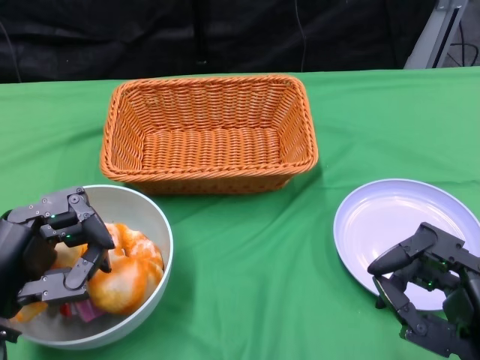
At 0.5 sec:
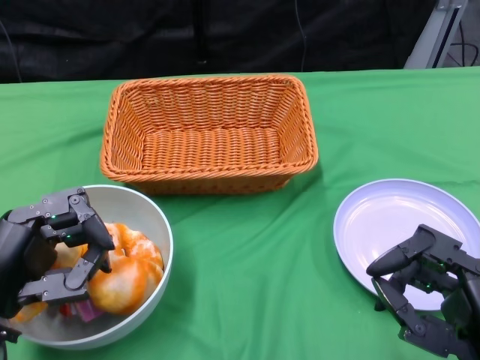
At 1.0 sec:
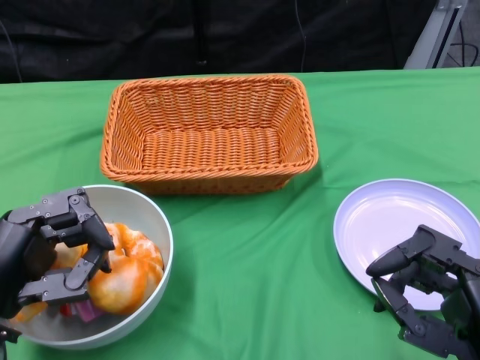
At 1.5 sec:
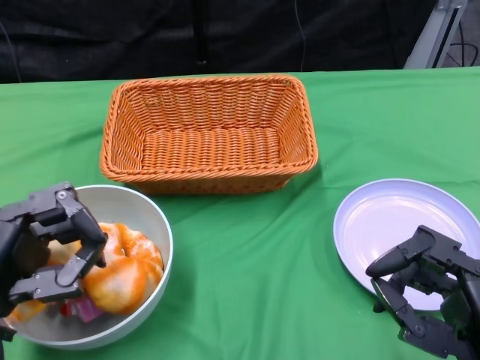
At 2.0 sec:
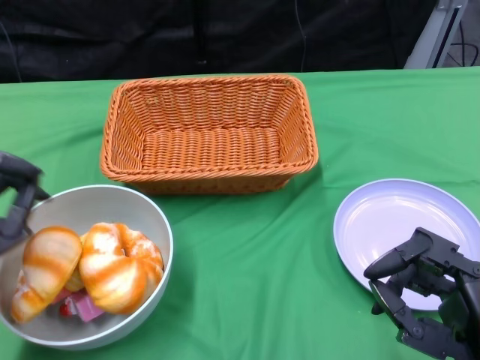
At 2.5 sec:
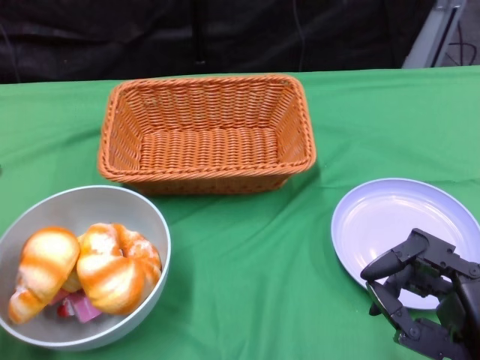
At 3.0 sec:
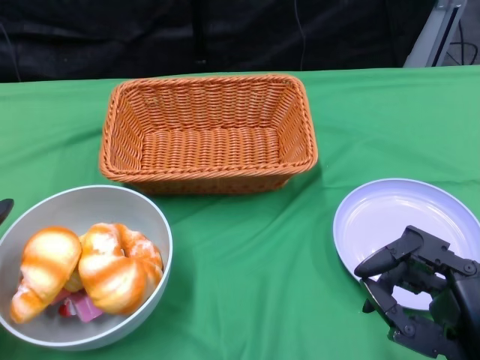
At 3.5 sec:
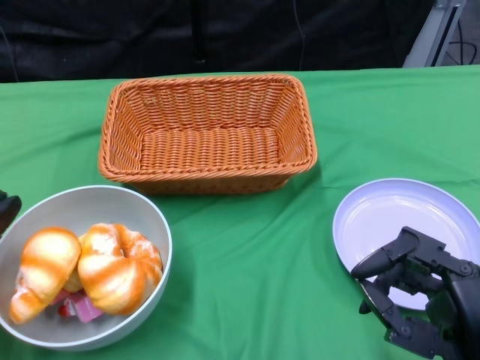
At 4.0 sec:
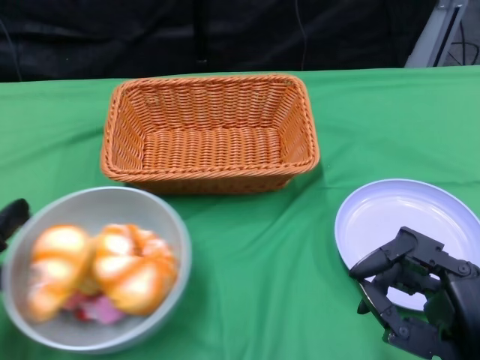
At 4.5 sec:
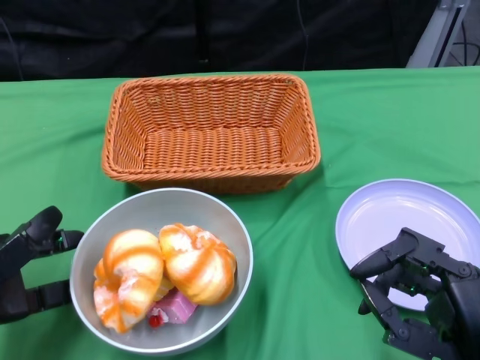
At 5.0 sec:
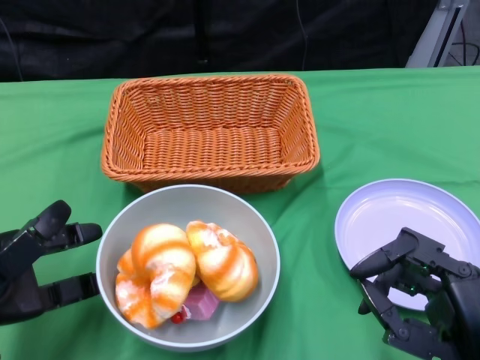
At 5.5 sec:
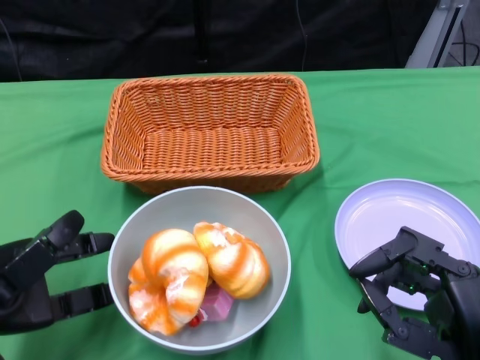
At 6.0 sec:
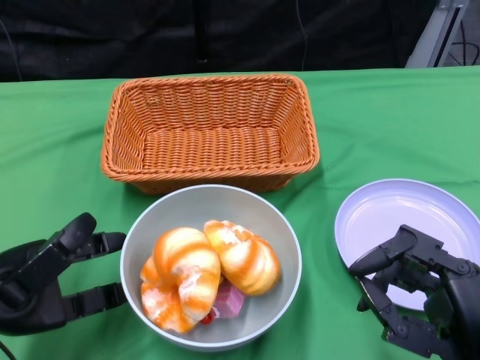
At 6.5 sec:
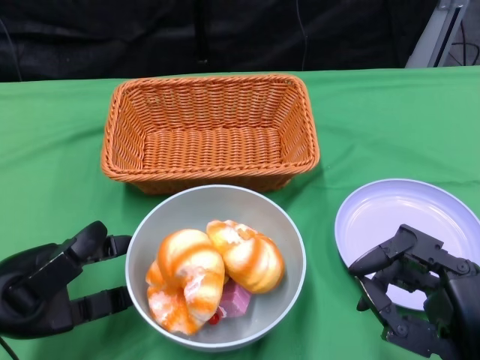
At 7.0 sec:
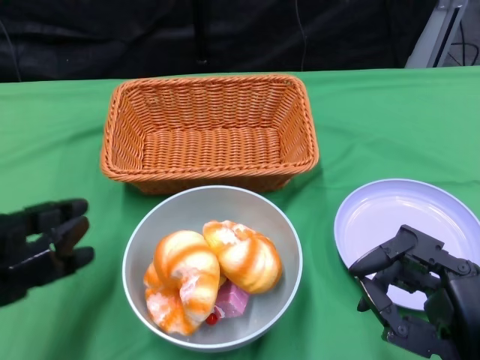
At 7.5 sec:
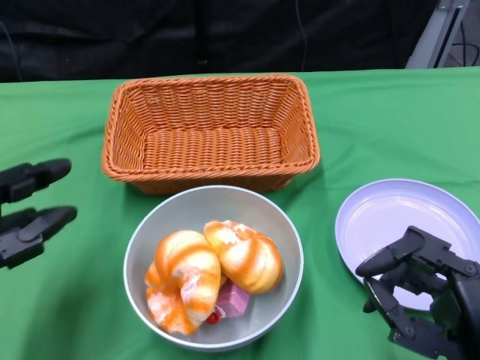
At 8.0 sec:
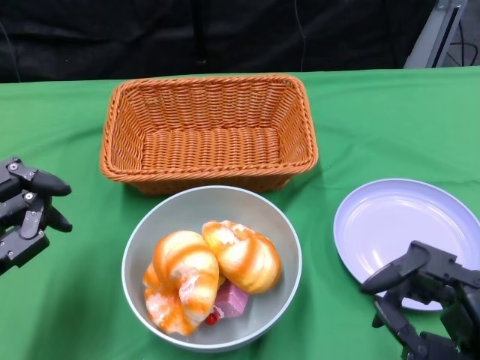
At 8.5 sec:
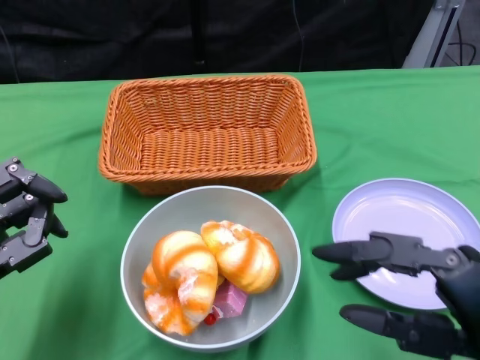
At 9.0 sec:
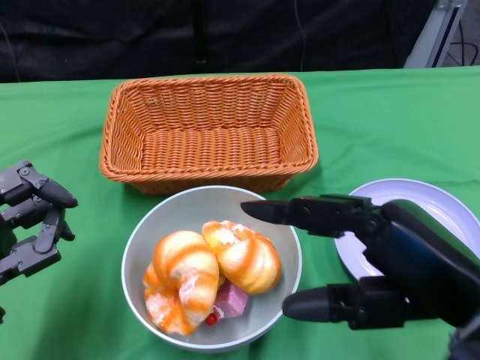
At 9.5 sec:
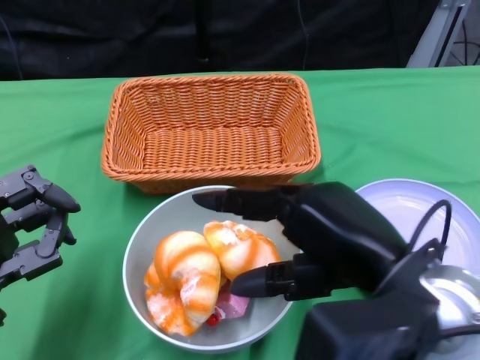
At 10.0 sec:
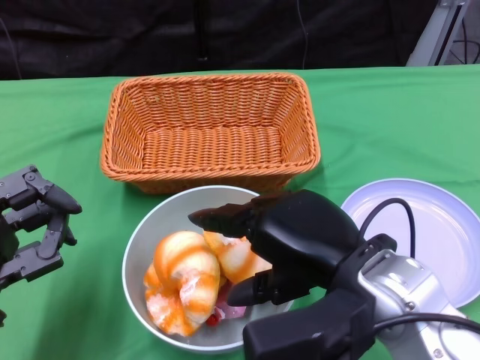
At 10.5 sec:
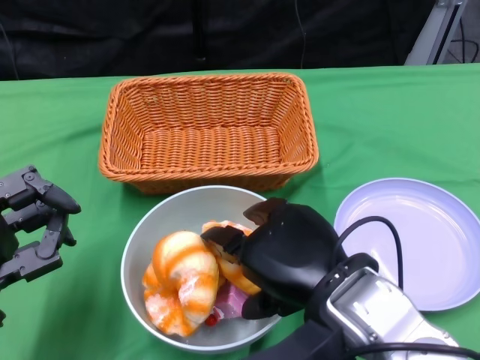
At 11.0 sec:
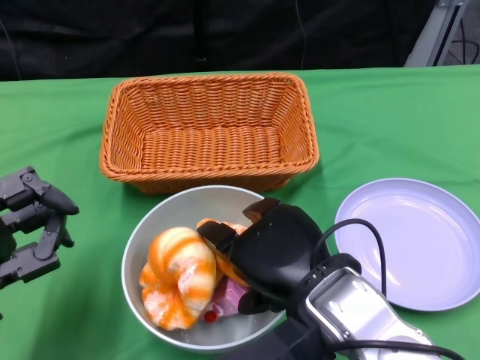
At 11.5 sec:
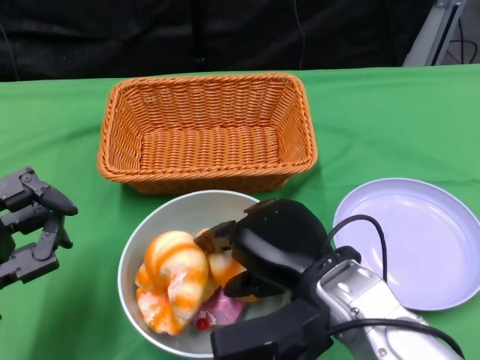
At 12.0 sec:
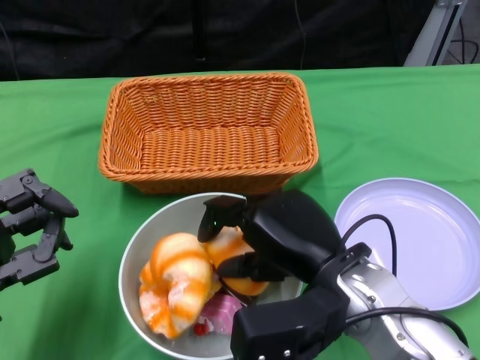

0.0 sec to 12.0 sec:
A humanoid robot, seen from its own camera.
Step, 0.0 sec to 7.0 sec: Push the bowl to the center of the table using the left gripper.
2.0 sec to 4.0 sec: The left hand shifts by about 5 cm.
4.0 sec to 6.0 sec: The left hand changes place by some 5 cm.
8.0 sec to 10.0 sec: The right hand travels to the left, forward and upward by approximately 15 cm.
10.0 sec to 12.0 sec: The right hand ends up roughly 5 cm from where it was.

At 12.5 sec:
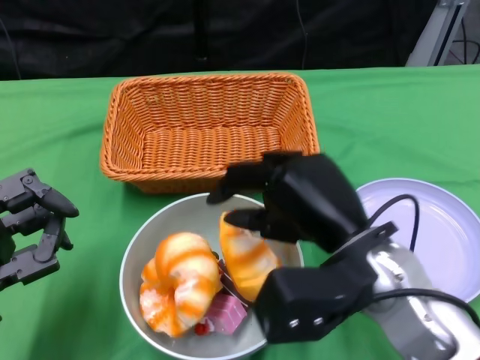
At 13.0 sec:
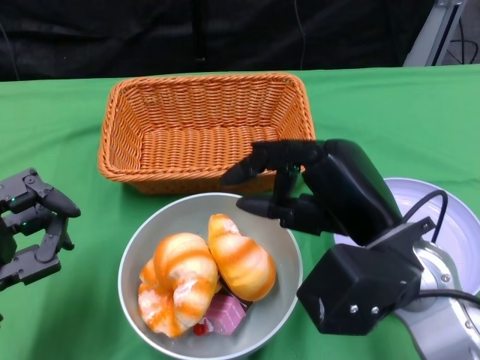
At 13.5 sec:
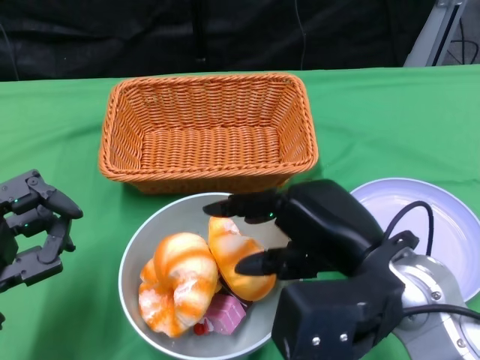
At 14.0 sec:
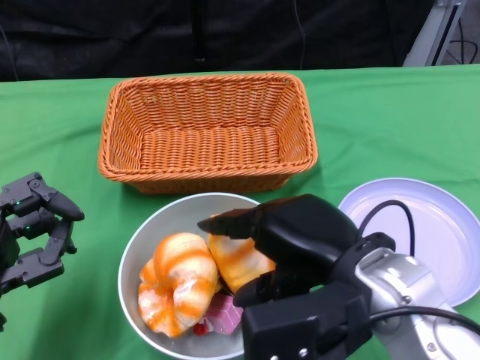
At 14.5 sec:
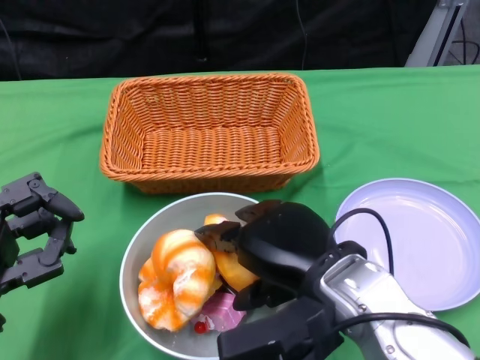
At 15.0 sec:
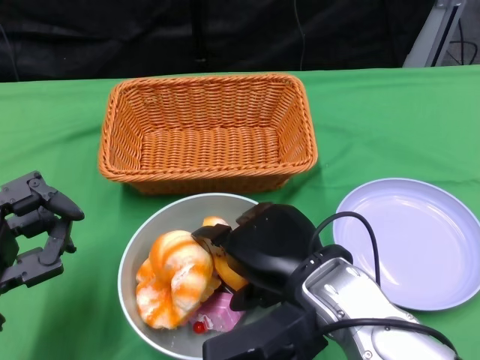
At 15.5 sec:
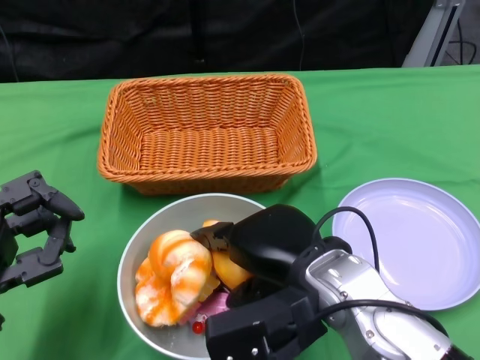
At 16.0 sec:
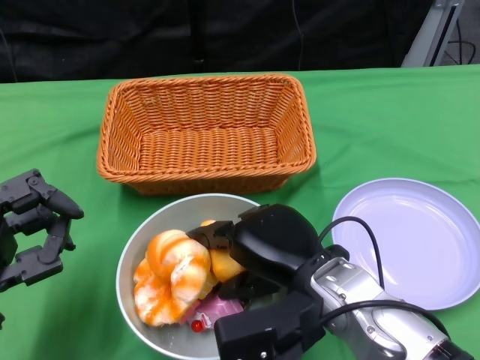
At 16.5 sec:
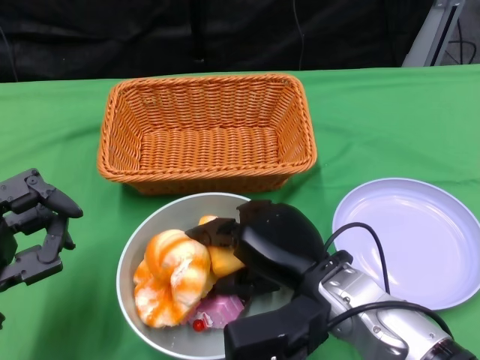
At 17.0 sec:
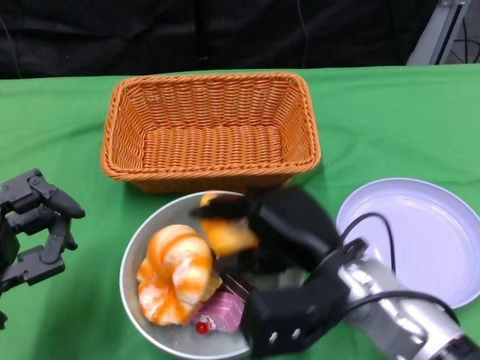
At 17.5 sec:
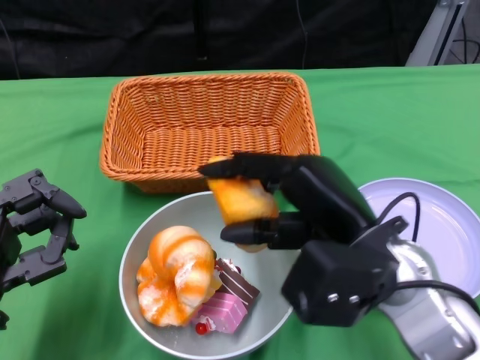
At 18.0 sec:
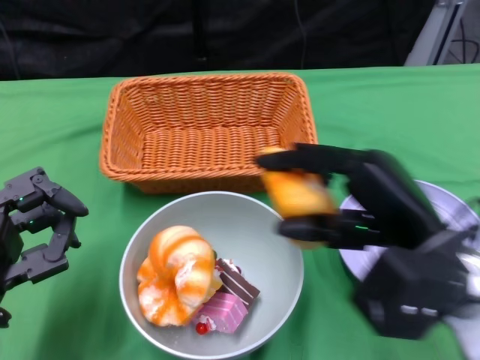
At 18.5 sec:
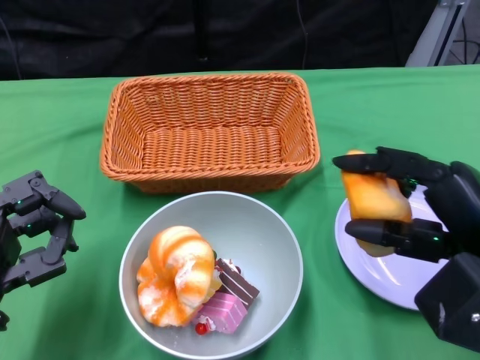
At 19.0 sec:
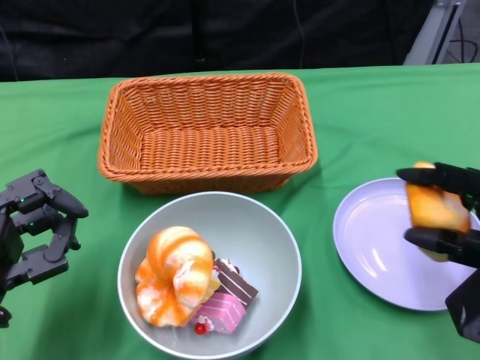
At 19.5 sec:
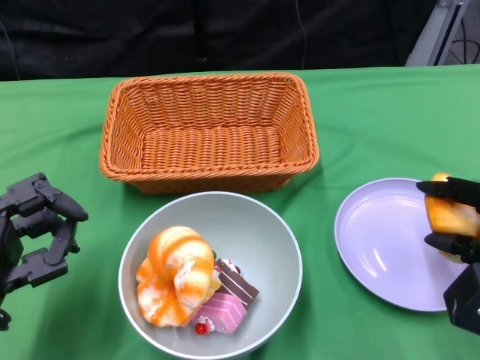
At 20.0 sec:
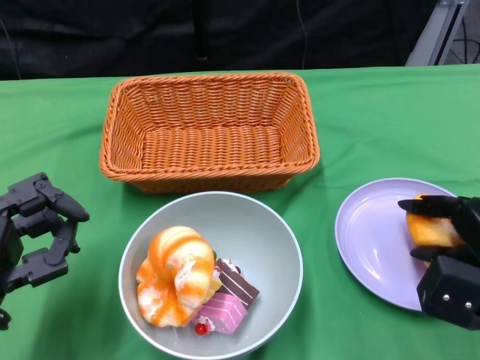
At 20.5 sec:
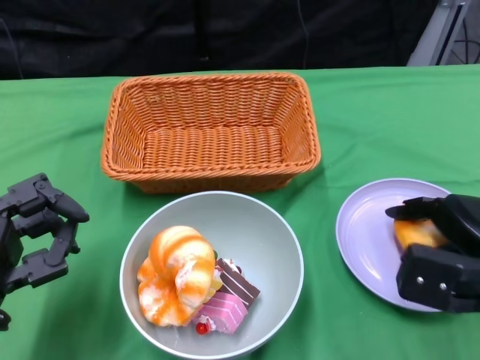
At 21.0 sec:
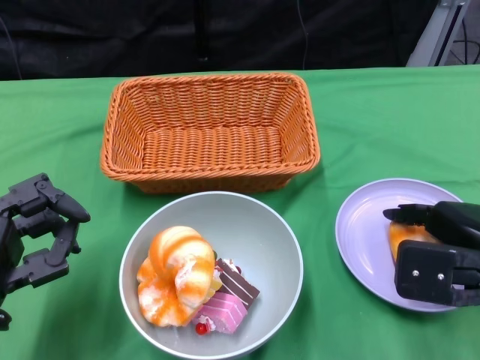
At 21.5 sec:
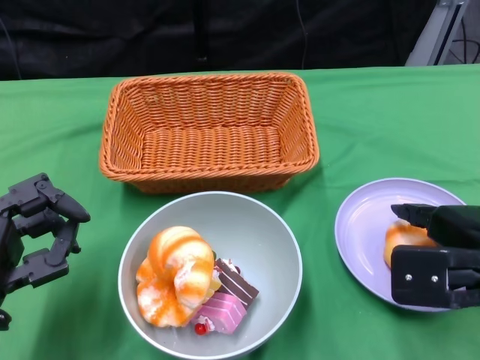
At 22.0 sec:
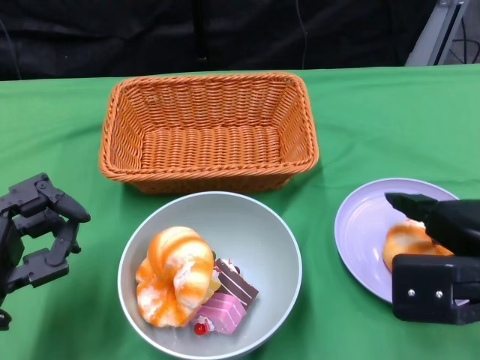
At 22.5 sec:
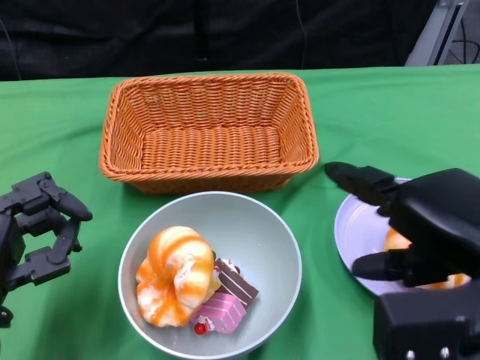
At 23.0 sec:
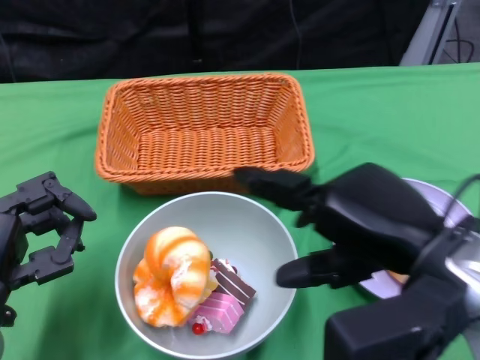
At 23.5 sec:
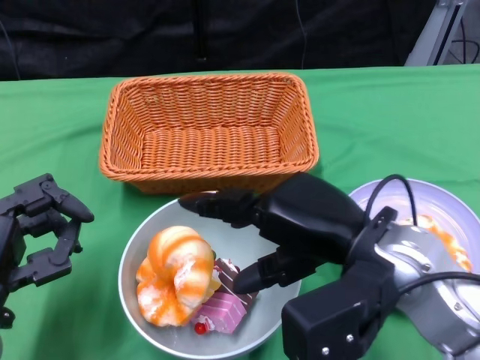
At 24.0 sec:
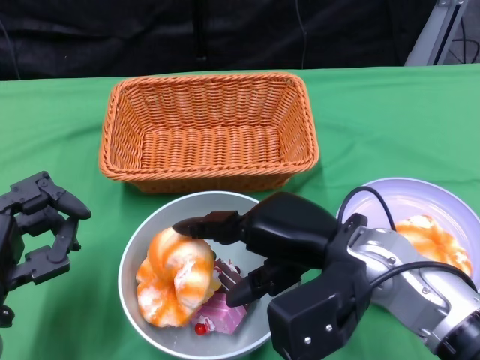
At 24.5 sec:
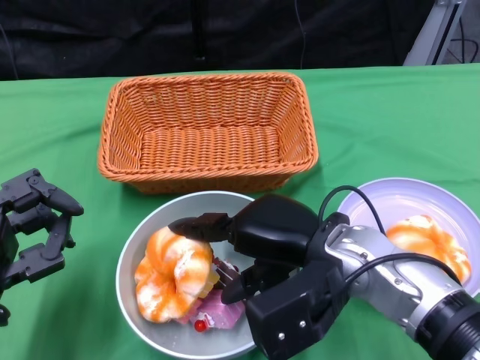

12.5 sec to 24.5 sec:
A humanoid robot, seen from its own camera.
14.5 sec to 16.5 sec: The right hand heads downward, covering approximately 5 cm.
16.5 sec to 18.5 sec: The right hand heads to the right and upward, covering roughly 15 cm.
18.5 sec to 20.5 sec: The right hand is displaced downward and forward by roughly 10 cm.
20.5 sec to 22.5 sec: The right hand is displaced upward and backward by about 15 cm.
22.5 sec to 24.5 sec: The right hand shifts about 15 cm to the left, downward and forward.

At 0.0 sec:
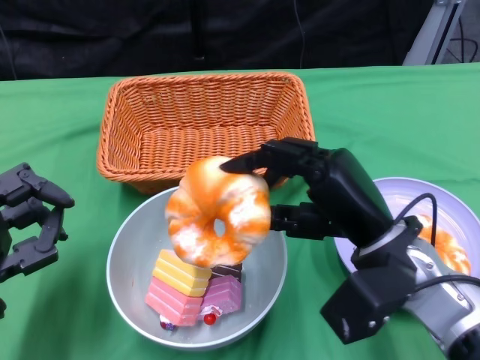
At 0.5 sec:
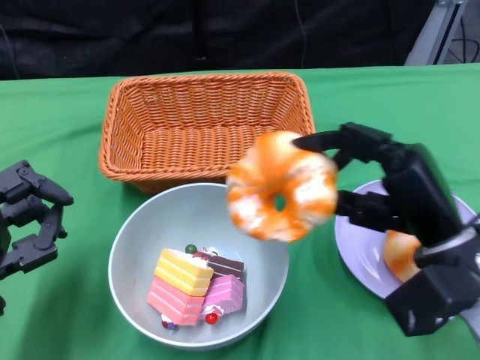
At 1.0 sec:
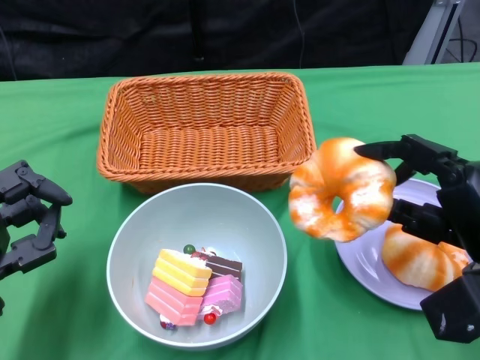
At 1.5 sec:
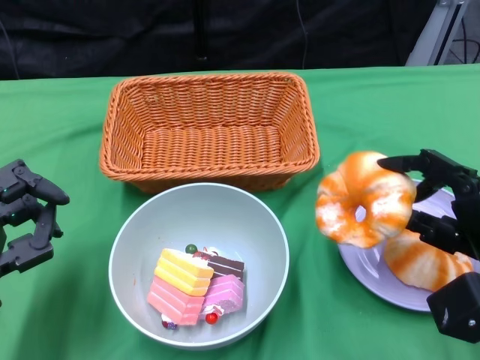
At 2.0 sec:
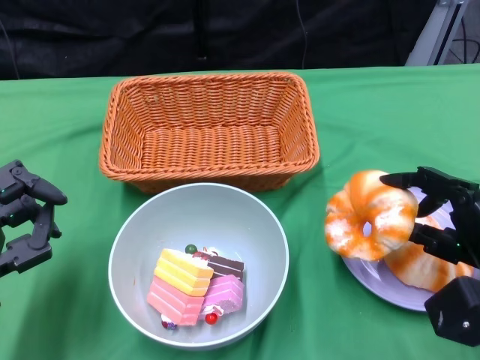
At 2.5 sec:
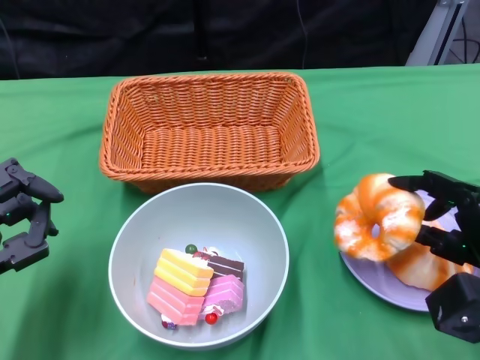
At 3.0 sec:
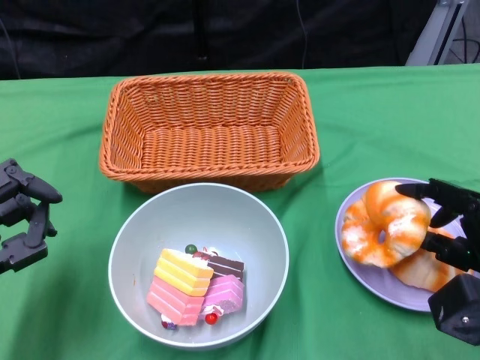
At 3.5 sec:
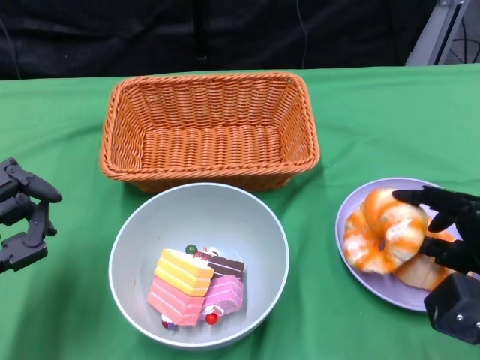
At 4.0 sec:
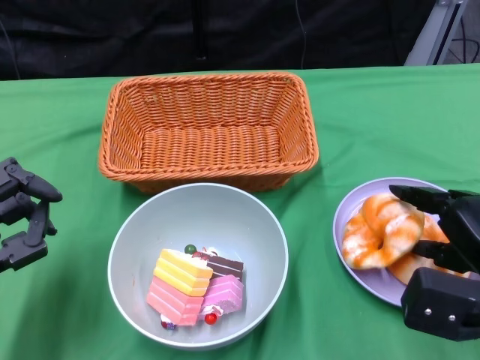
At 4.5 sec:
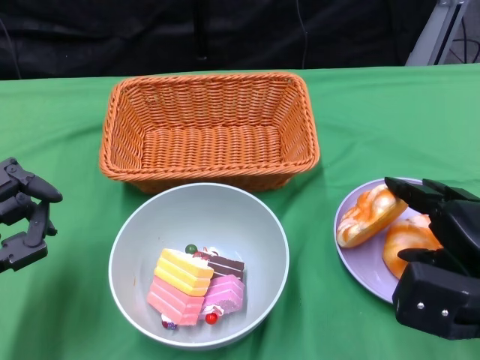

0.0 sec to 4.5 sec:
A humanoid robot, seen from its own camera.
0.0 sec to 2.0 sec: The right hand goes roughly 15 cm to the right and downward.
